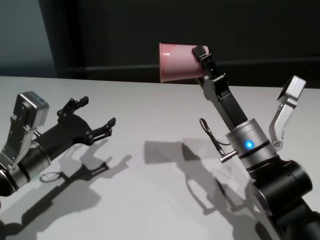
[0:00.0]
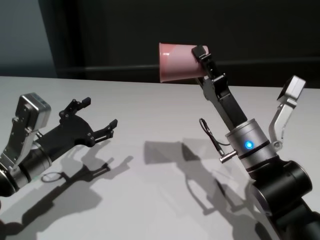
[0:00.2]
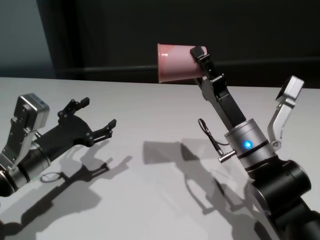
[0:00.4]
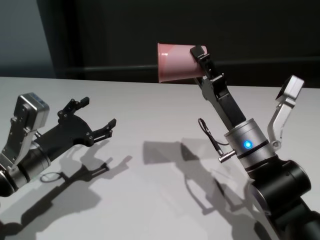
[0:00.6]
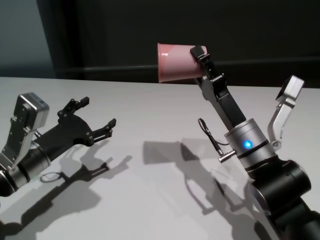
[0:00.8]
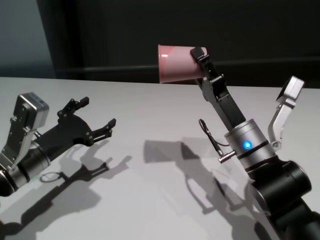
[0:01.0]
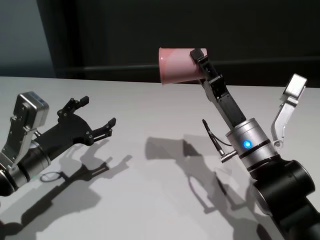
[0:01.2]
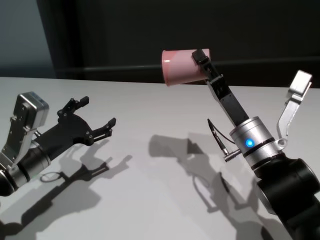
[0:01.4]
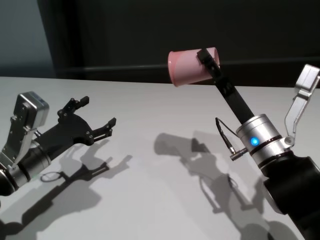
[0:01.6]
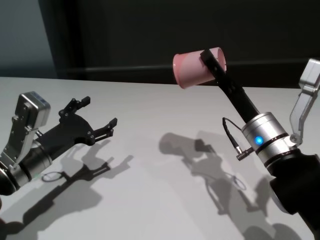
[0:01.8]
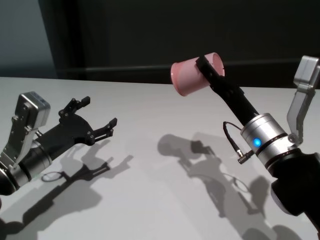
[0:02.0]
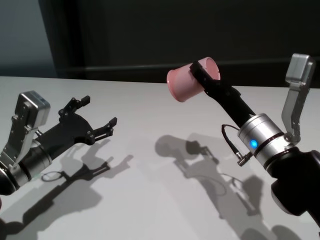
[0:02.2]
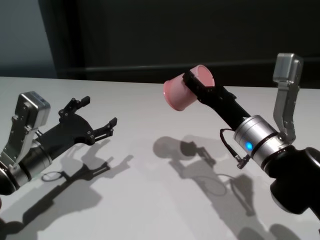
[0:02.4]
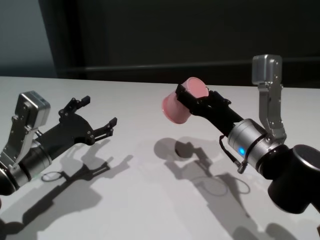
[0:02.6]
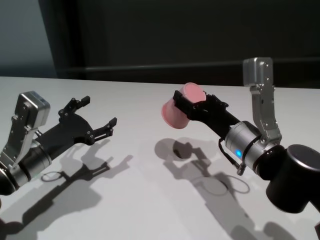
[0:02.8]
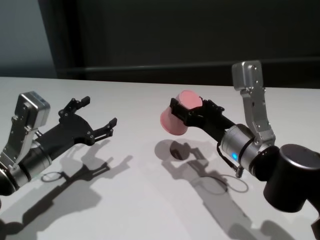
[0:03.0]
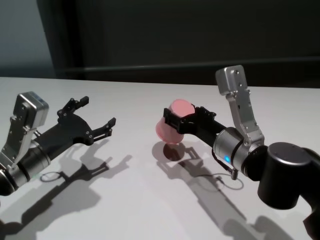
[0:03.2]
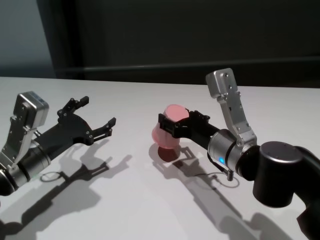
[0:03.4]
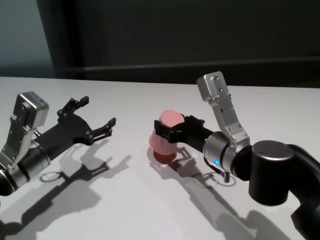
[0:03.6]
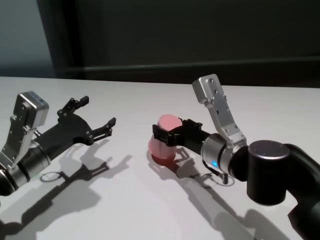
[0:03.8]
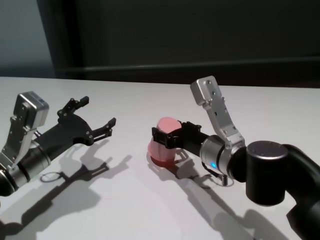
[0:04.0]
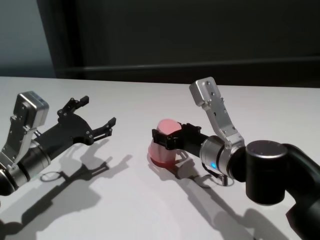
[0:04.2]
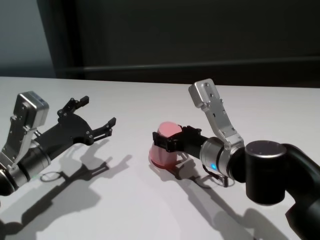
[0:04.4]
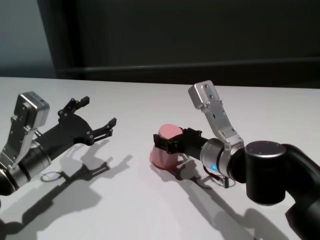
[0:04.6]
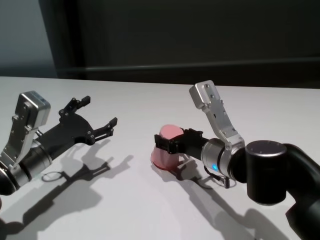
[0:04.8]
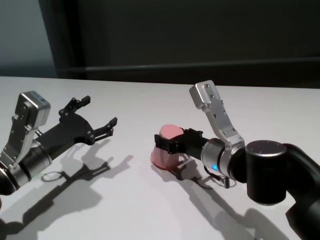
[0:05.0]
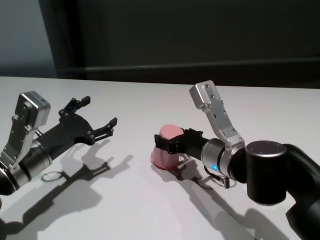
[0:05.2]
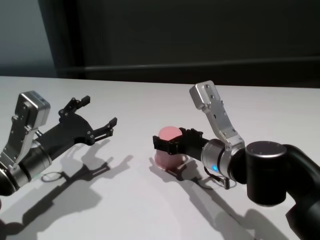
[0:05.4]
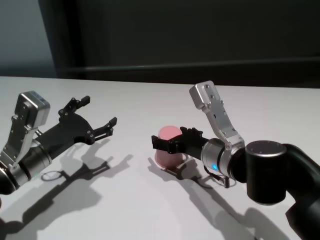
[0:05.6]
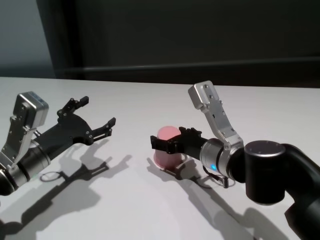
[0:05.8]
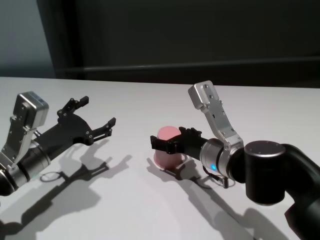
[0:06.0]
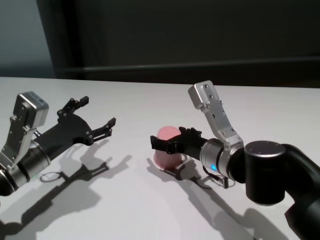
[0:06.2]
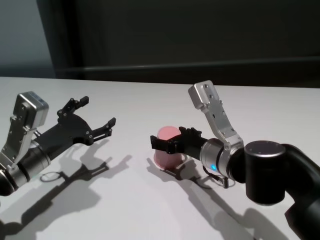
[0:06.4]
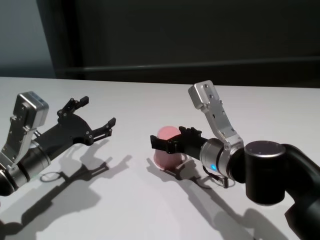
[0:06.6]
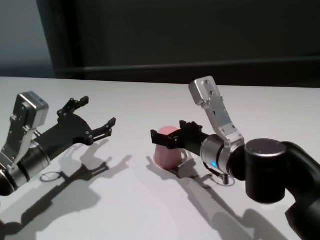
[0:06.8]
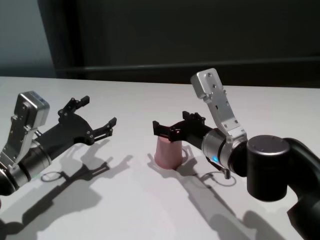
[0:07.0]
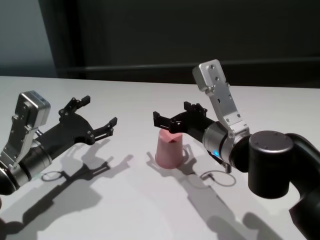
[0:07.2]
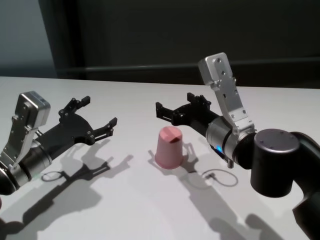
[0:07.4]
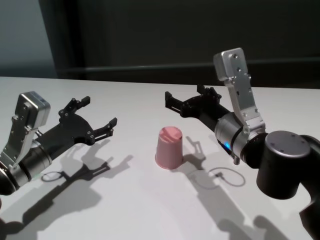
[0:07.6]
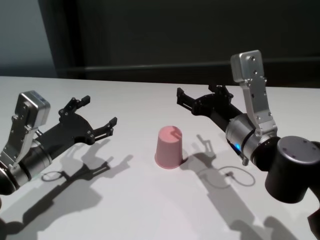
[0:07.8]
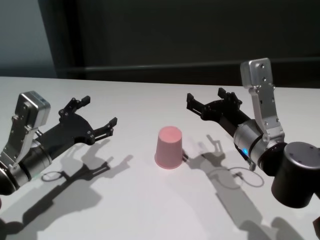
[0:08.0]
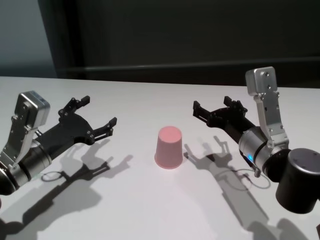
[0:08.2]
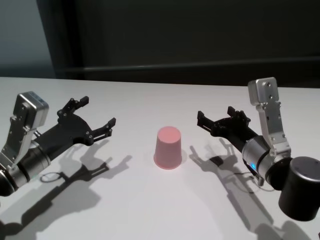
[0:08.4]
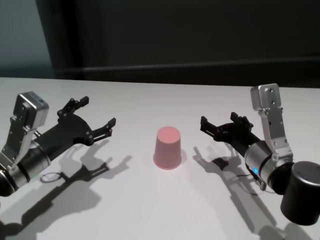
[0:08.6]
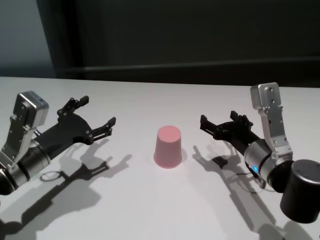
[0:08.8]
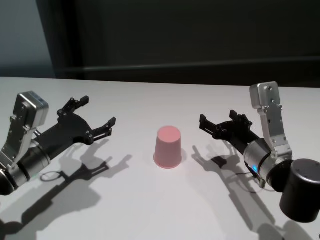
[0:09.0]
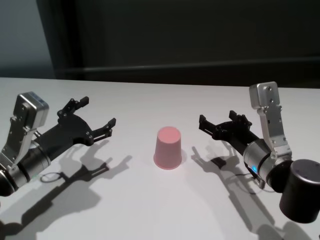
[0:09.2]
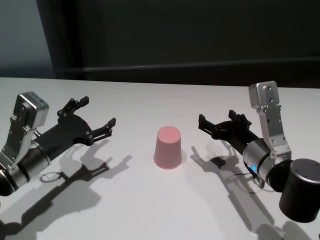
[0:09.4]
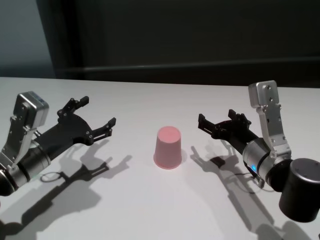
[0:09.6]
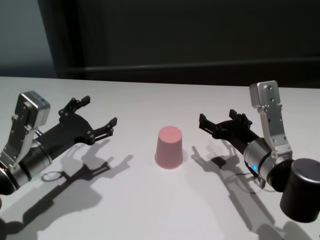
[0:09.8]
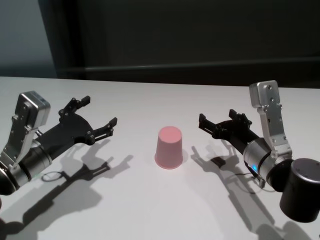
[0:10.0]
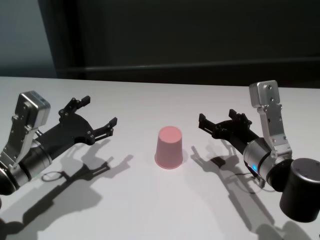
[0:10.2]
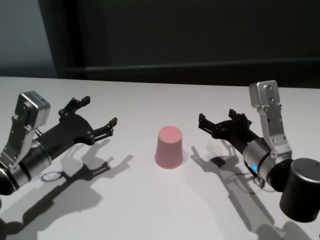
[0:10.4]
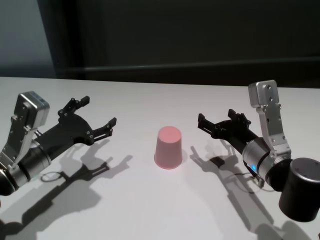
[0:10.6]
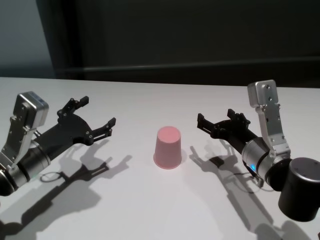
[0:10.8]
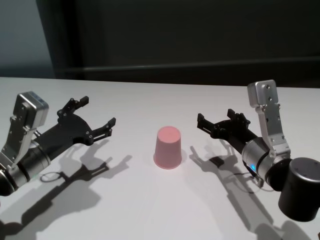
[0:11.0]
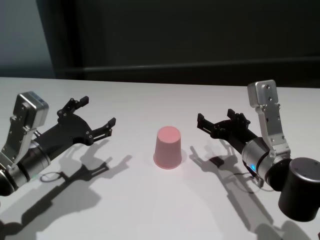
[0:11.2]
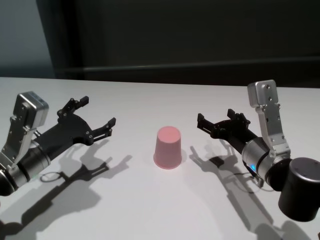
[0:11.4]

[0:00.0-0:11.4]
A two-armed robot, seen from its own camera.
Task of the whole recording: On the white table pick up the cup with one hand and transfer it to the other hand before turning it over.
Step, 0:00.0 to 0:06.6: Place the cup on the table with right gripper.

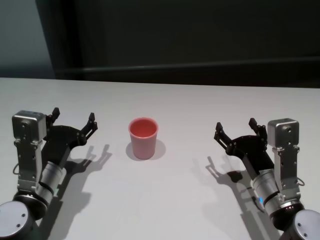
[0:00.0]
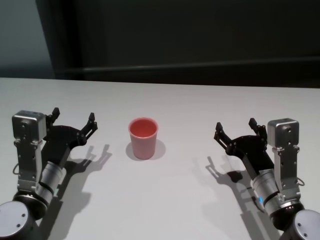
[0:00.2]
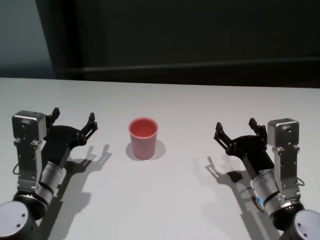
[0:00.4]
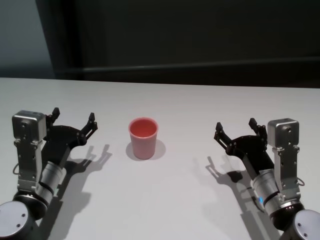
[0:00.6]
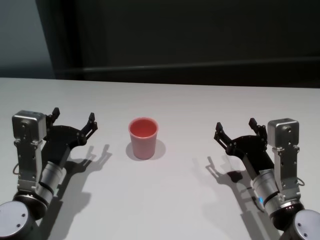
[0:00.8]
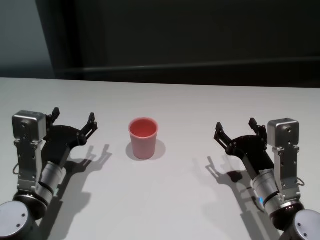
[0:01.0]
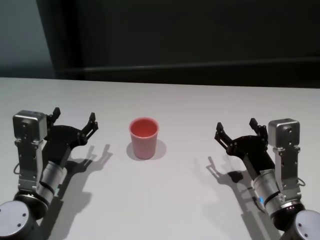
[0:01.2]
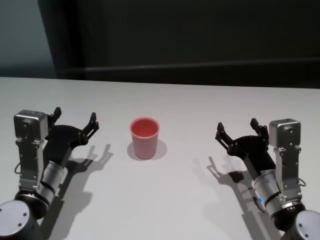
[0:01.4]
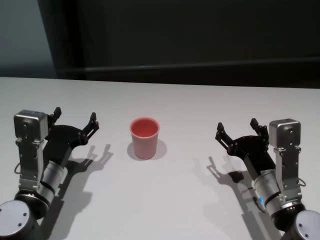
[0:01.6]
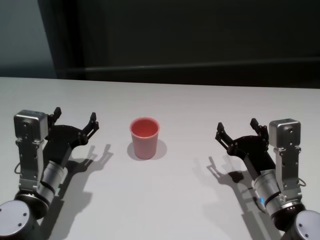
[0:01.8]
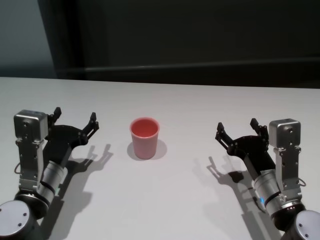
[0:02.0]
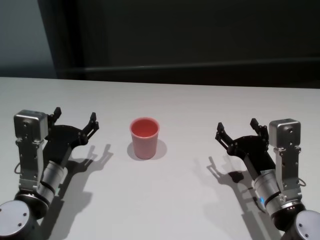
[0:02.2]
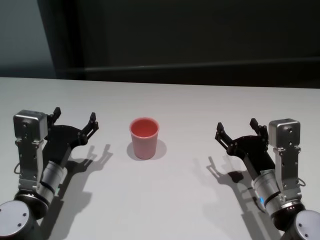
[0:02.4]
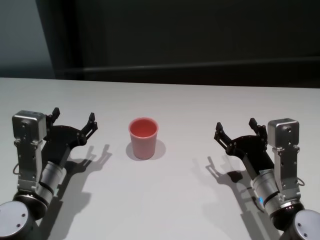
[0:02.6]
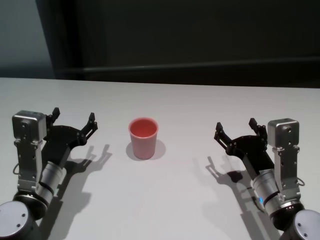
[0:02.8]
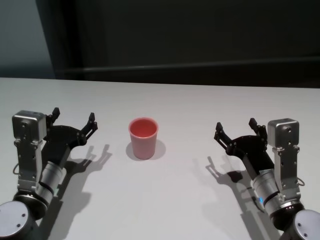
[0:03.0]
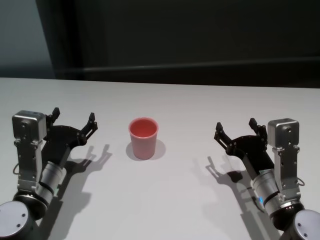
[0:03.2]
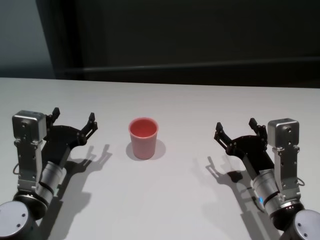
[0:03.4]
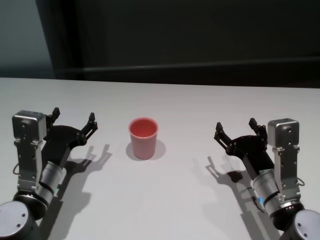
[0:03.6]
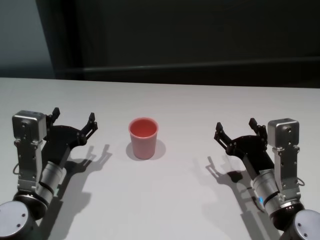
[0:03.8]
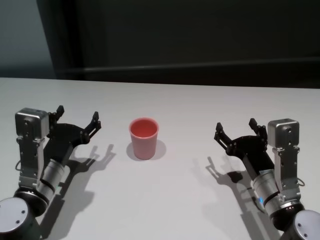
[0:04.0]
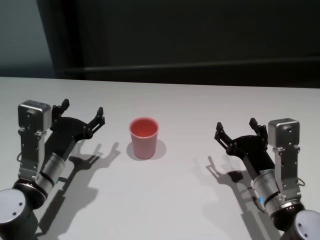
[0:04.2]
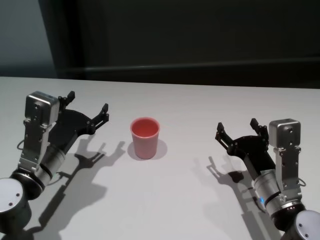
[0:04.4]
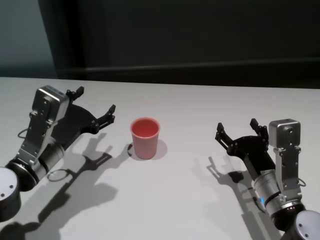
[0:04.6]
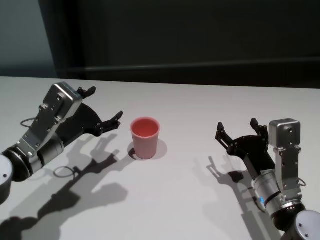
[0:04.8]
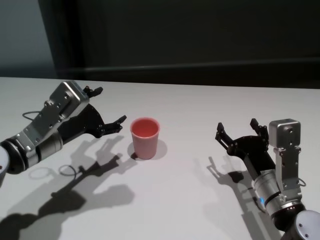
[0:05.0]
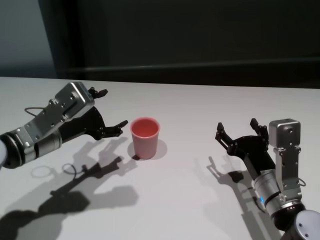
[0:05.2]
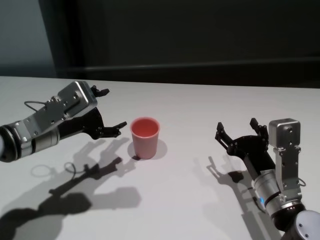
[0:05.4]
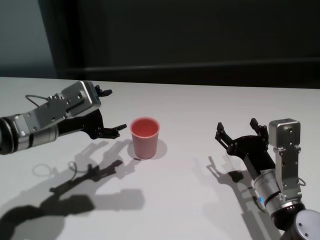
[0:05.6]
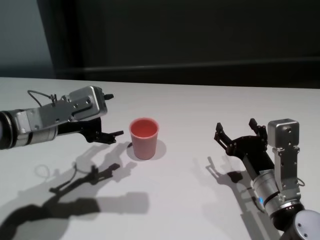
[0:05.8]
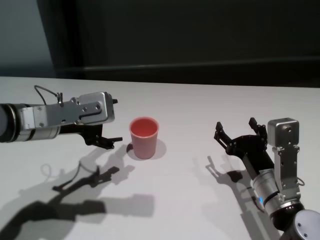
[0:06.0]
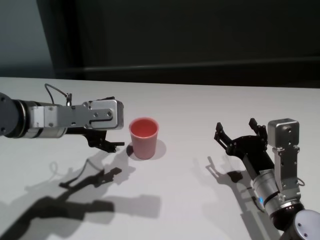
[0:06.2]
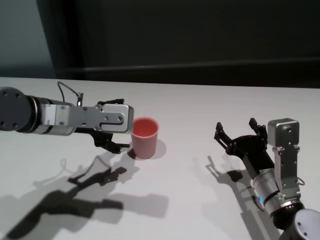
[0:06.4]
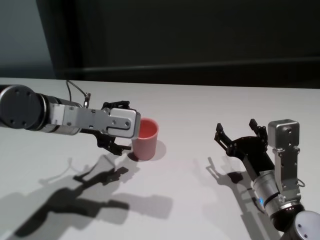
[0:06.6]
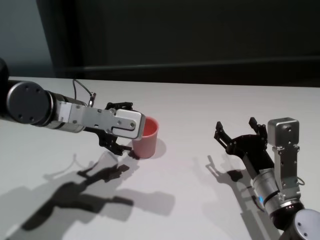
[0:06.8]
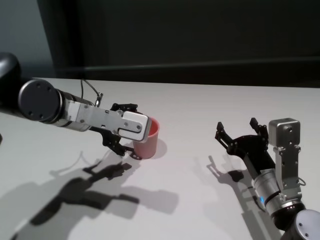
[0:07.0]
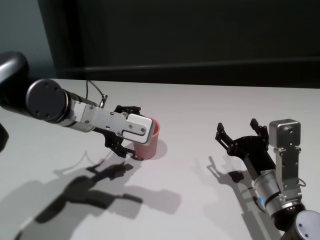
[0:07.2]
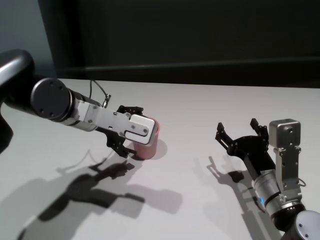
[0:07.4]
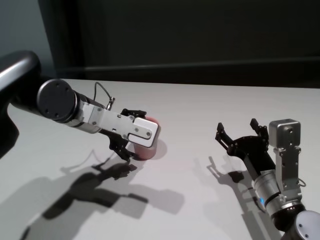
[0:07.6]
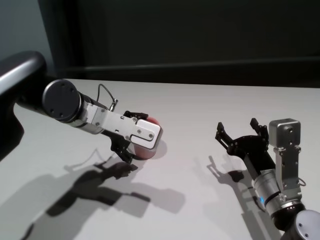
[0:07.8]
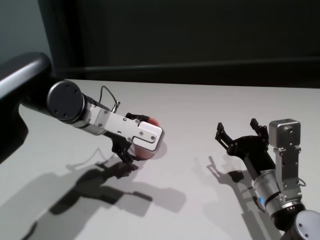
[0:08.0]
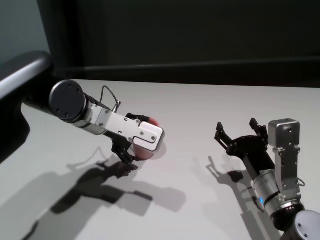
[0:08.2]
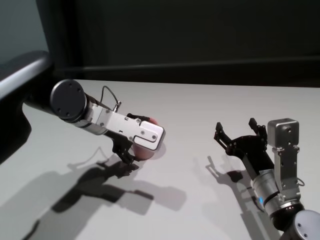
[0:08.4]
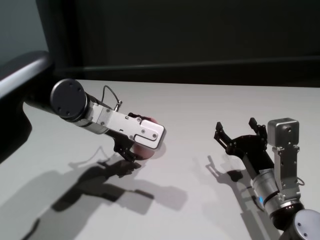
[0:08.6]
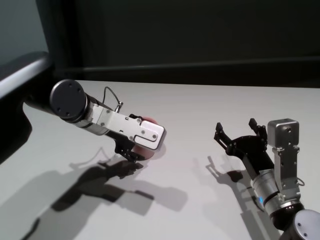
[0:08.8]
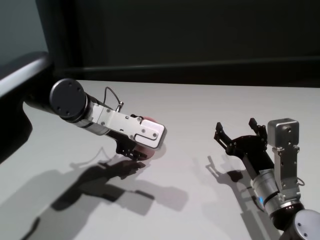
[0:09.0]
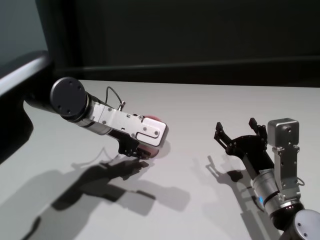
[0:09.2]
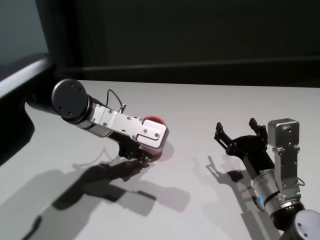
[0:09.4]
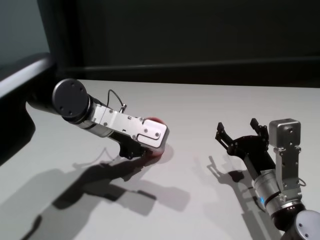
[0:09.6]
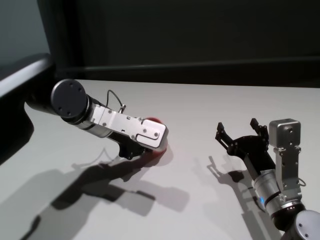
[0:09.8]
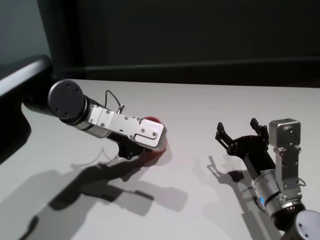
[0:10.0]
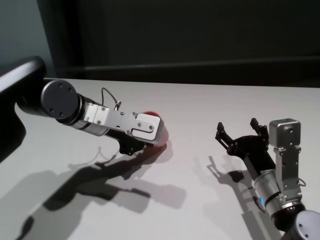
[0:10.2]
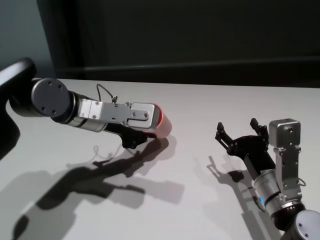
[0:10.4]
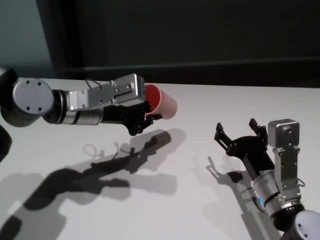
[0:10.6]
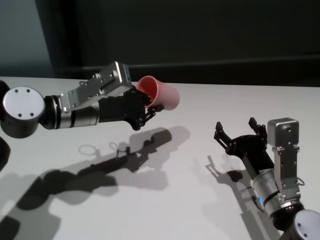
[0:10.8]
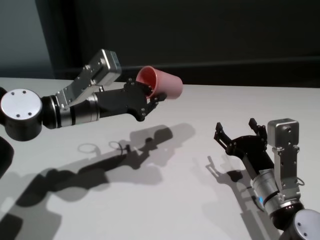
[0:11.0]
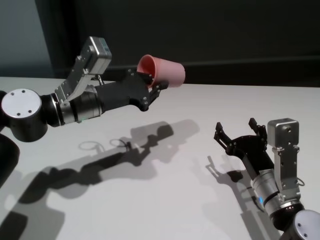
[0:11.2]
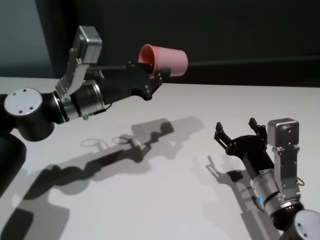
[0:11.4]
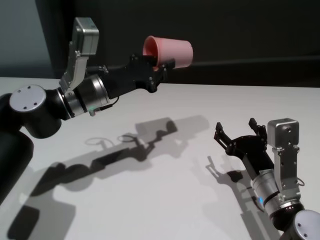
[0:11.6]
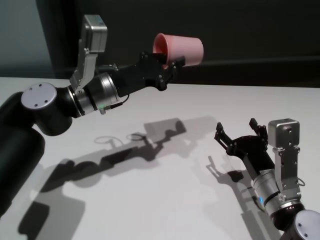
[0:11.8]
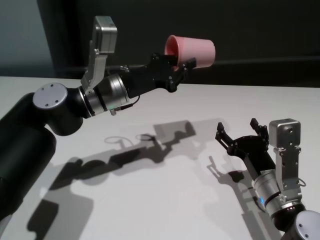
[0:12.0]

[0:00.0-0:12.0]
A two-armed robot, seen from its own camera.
Task of the whole recording: On the white table pick up the cup with one hand and transfer it to the other hand before turning it over.
Step, 0:00.0 to 0:09.8: Grasp the cup with left gripper.
